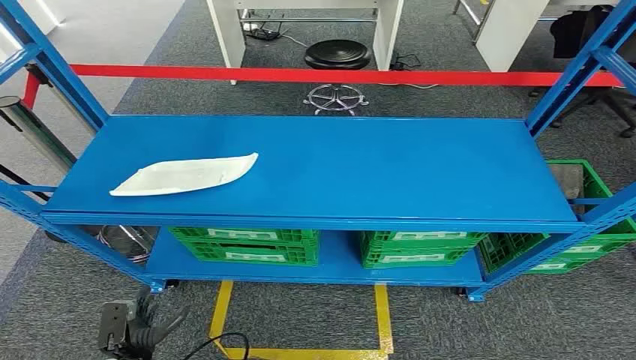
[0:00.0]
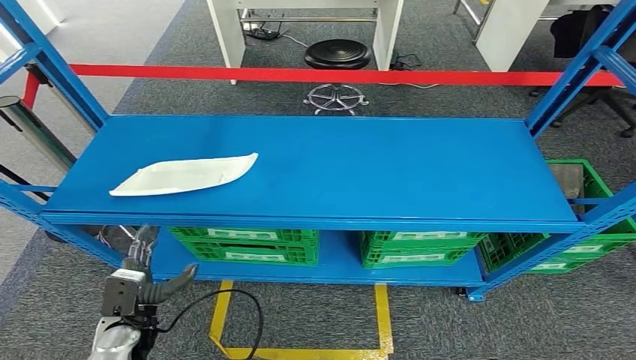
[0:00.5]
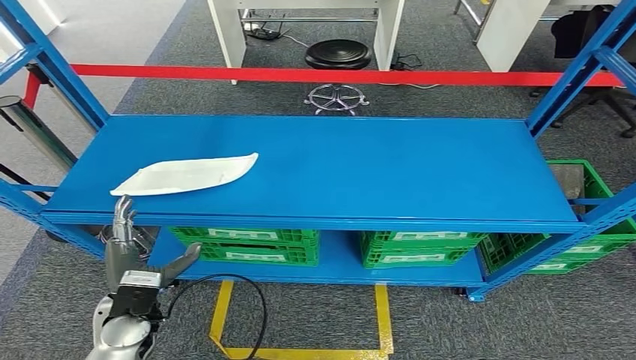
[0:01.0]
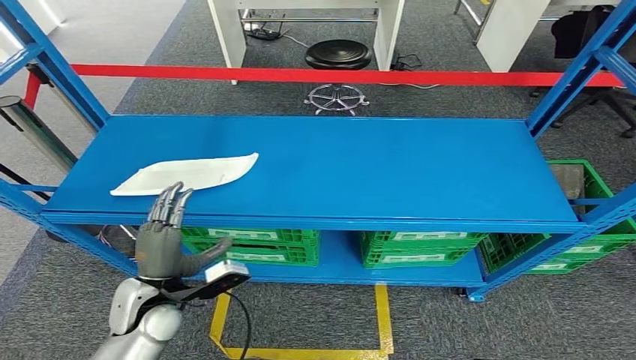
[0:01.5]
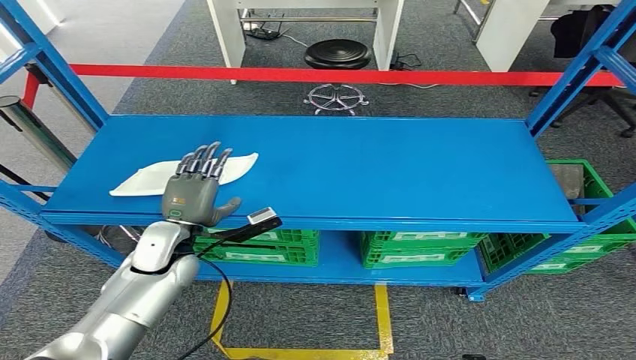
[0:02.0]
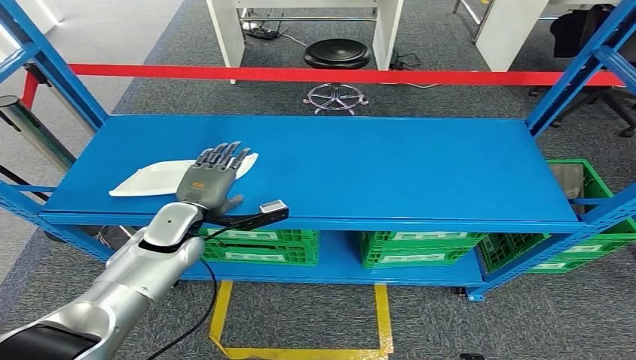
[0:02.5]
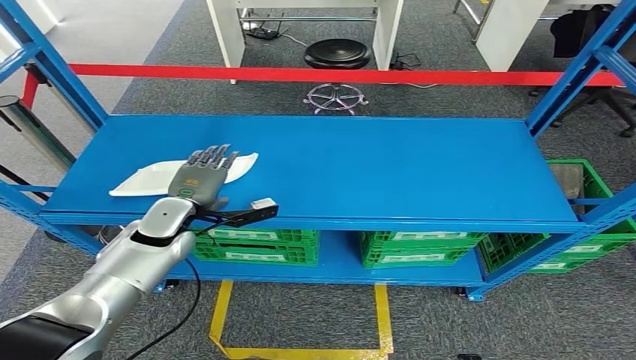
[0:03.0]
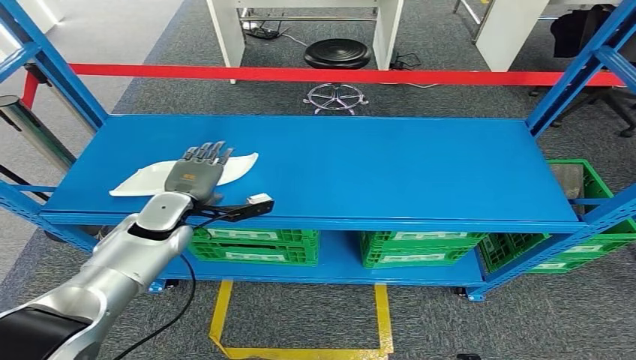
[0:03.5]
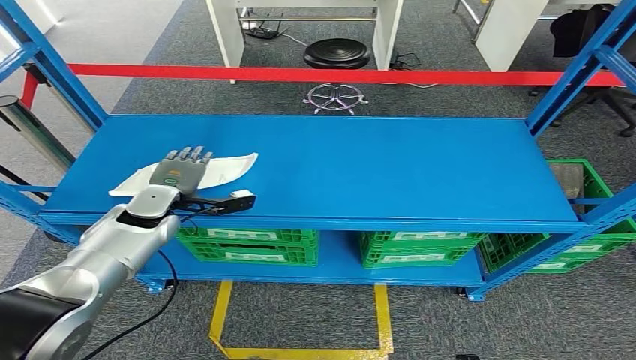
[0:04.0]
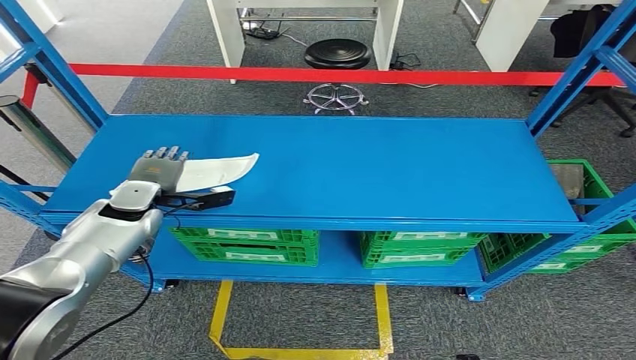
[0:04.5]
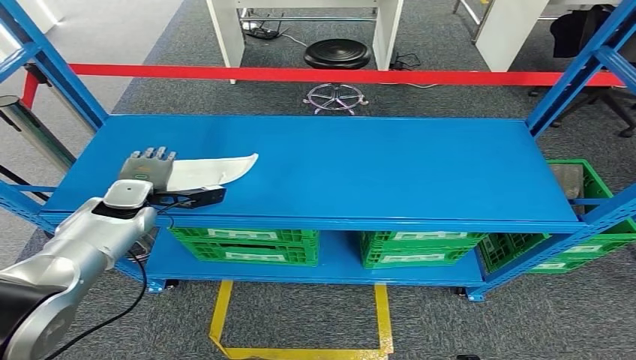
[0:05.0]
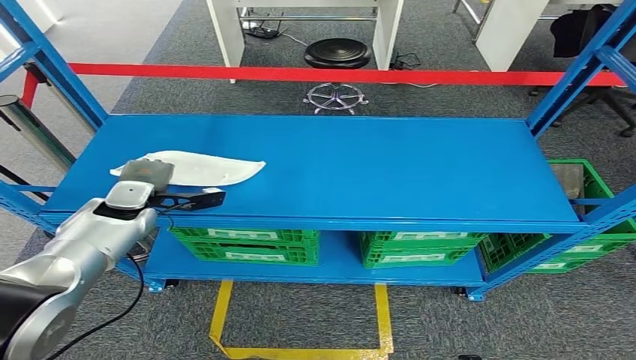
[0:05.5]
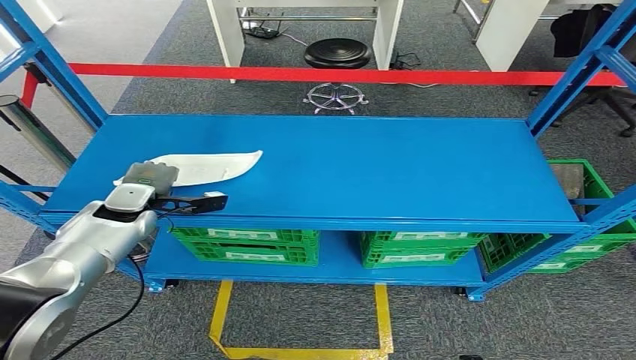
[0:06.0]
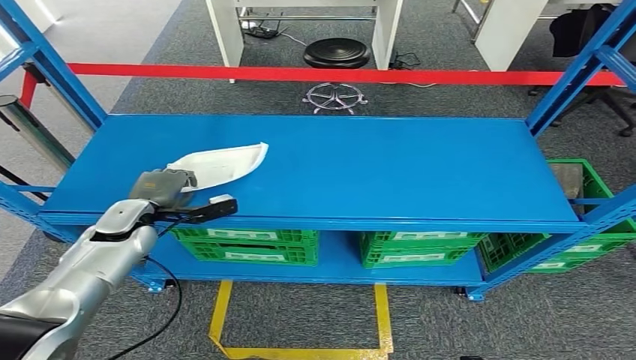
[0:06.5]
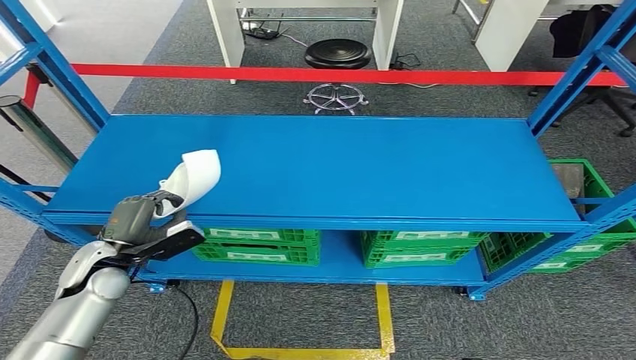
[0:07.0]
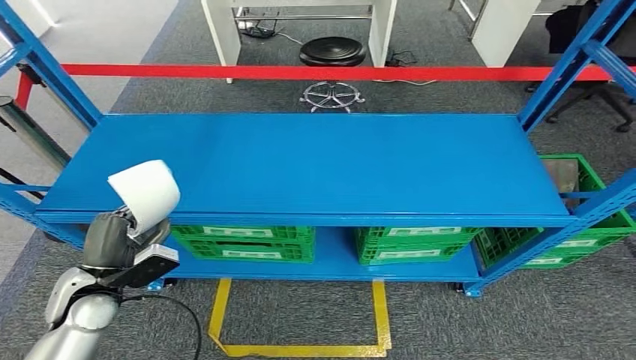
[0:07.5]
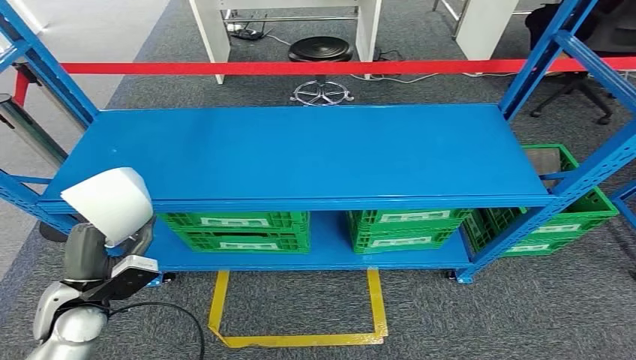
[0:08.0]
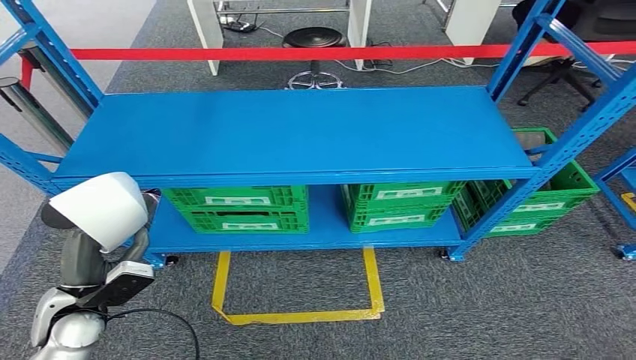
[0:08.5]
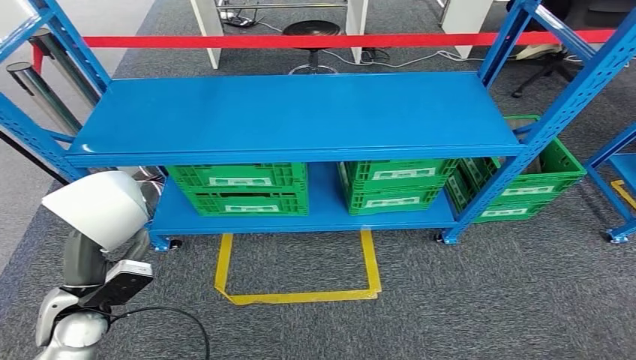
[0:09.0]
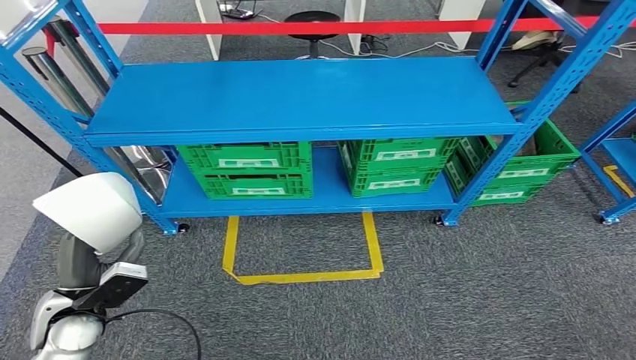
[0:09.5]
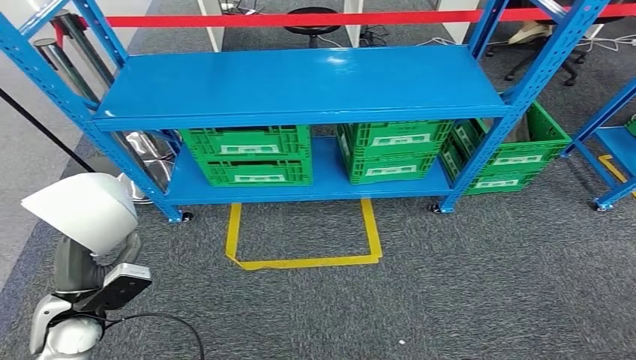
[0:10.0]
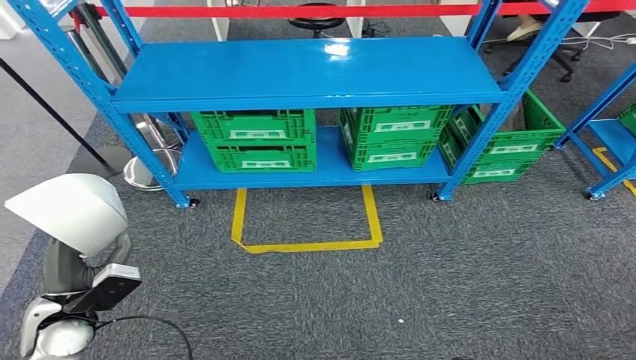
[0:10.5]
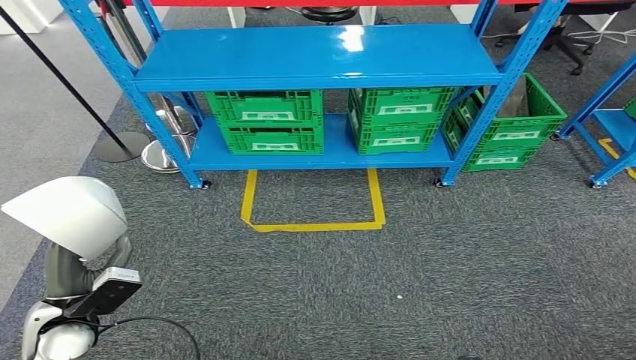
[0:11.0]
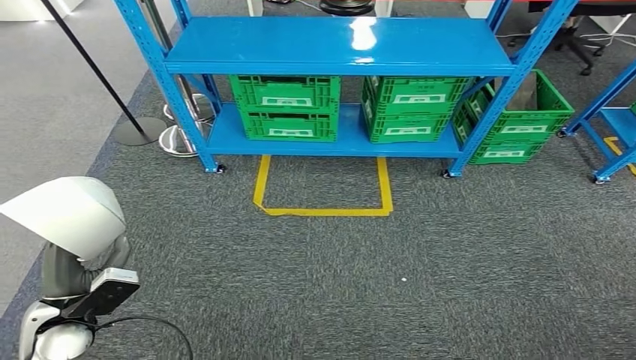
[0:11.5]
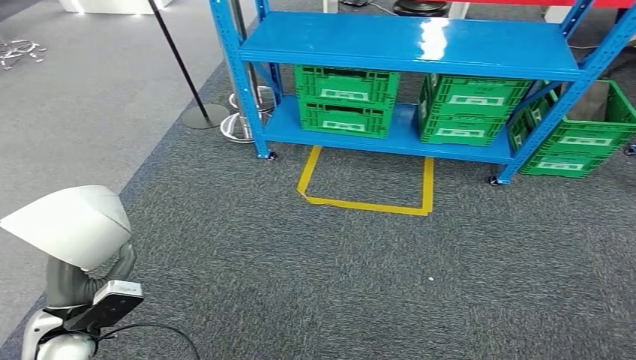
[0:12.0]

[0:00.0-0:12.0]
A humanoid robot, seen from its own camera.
Step, 0:00.0 to 0:08.5: Pick up the small component from the shelf.
0:02.0 to 0:04.0: The left hand goes about 10 cm forward.
0:04.0 to 0:06.0: The hands stay close to where they were, moving slightly.

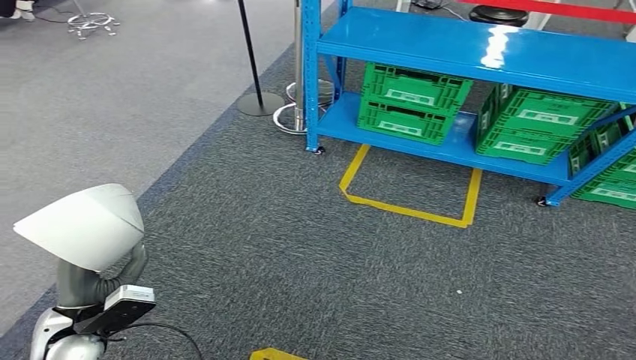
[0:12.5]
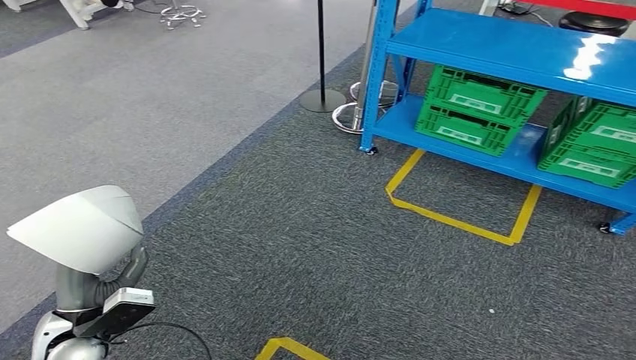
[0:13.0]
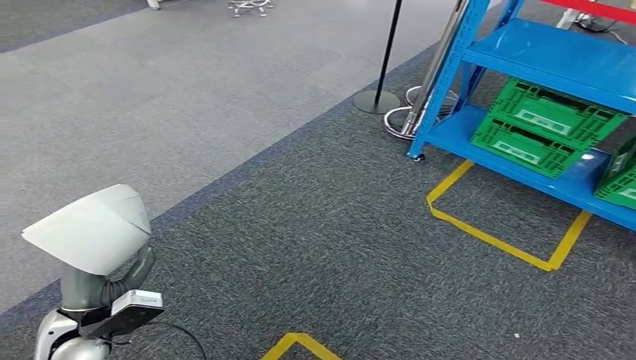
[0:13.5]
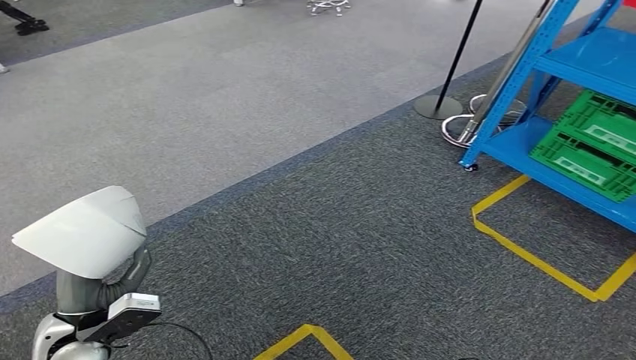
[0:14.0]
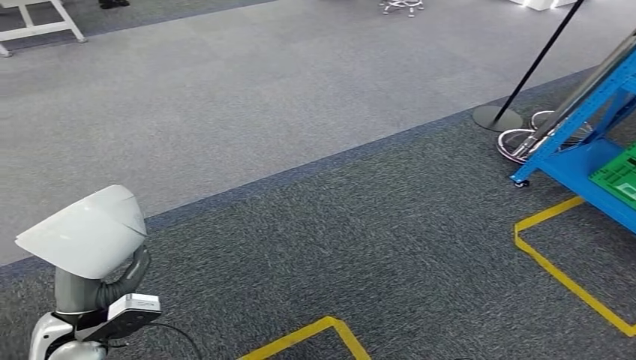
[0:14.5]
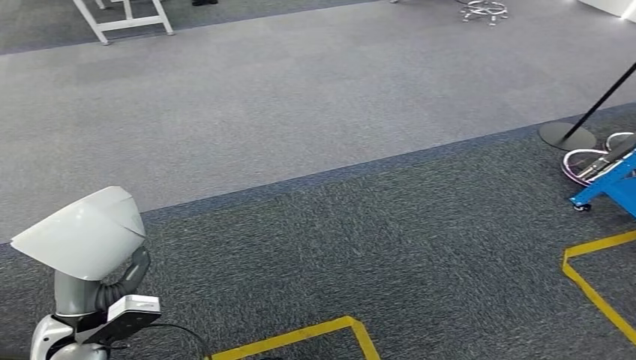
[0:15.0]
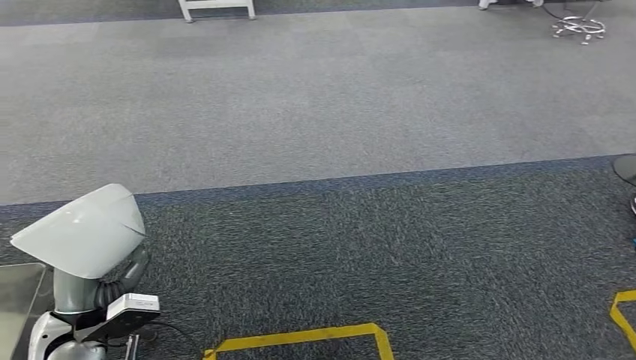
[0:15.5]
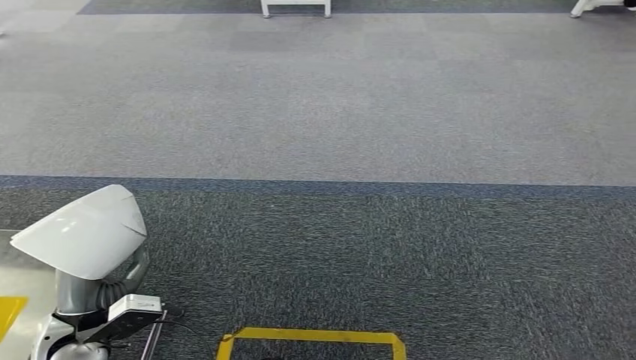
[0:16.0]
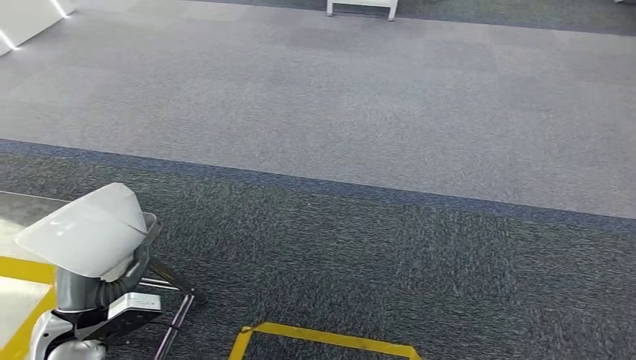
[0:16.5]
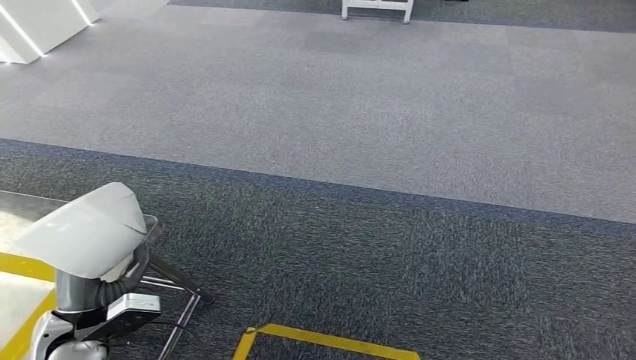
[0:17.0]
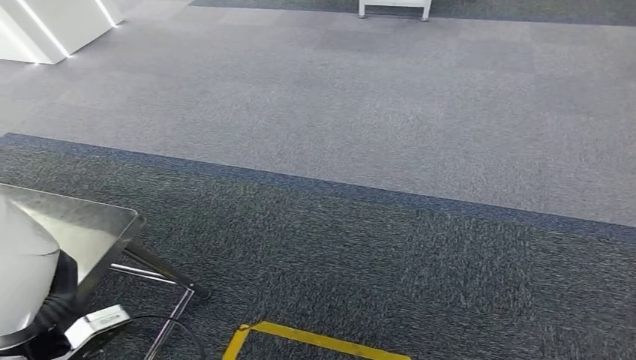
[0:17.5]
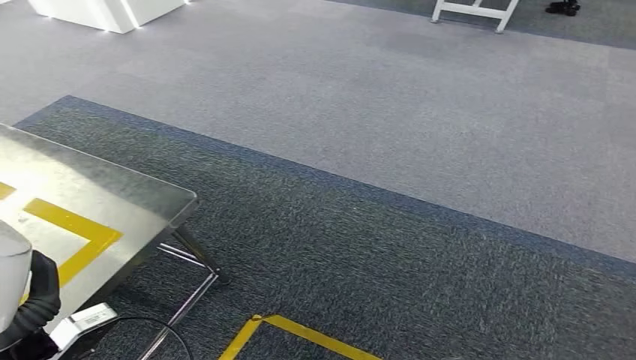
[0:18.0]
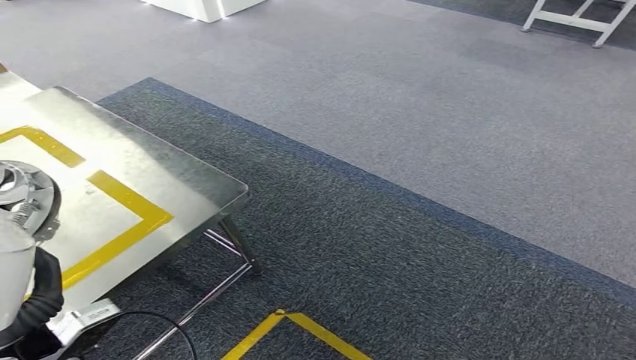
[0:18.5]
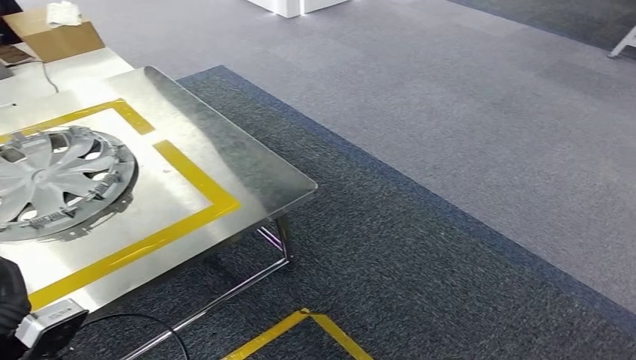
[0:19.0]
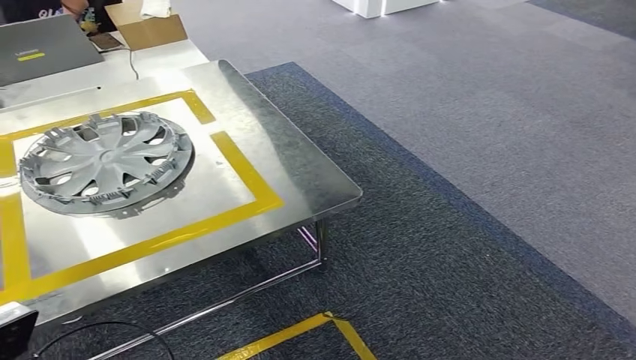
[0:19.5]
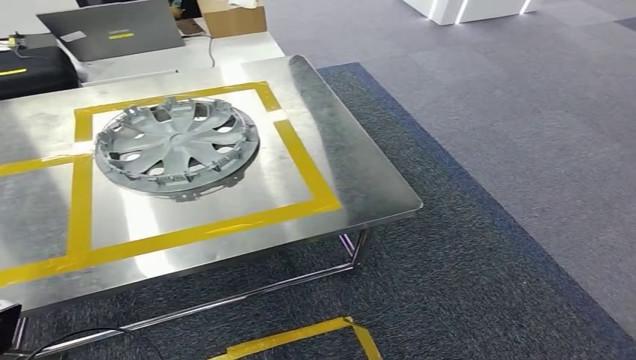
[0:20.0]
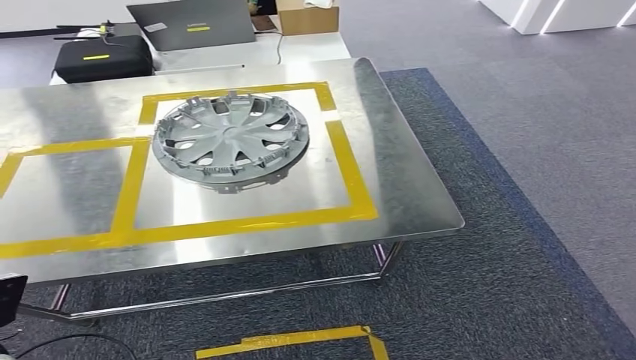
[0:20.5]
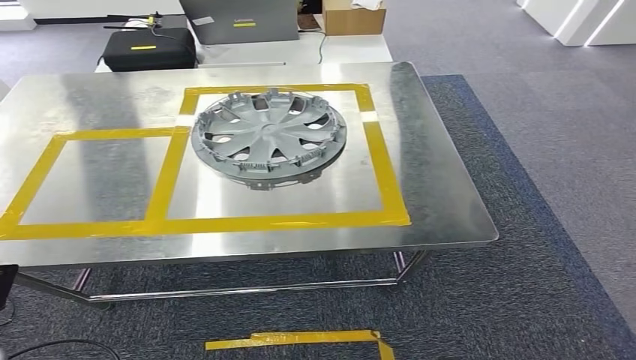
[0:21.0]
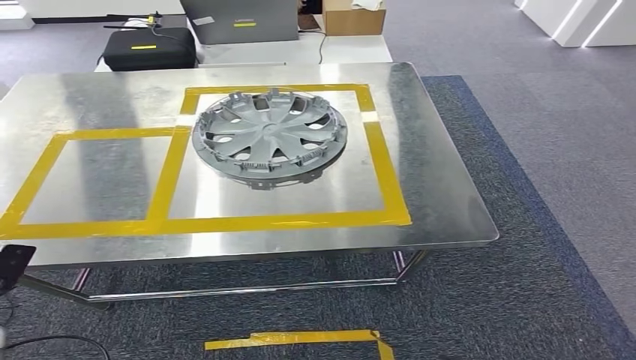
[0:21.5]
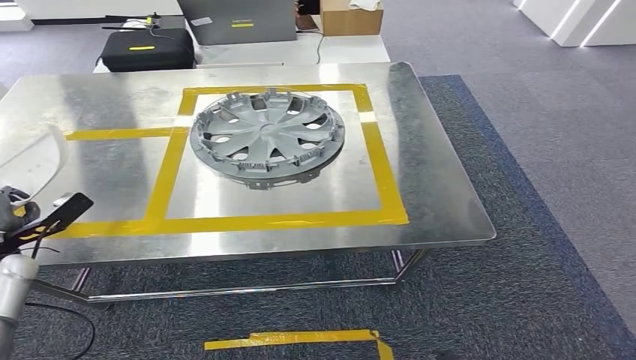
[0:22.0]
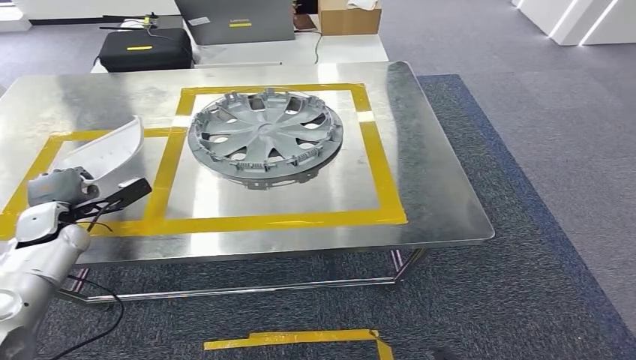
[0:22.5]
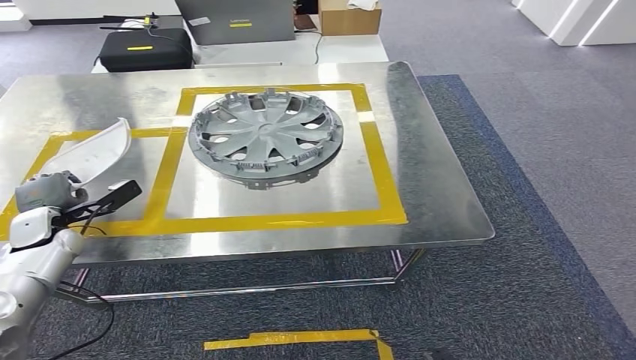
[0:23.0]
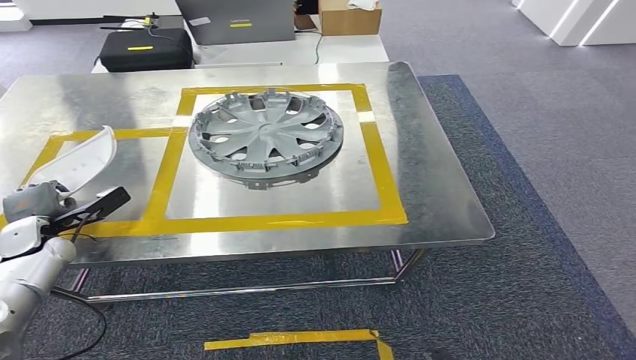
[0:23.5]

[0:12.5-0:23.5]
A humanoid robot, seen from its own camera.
Step, 0:12.5 to 0:18.0: Move the small component to the workbench.
0:21.5 to 0:23.5: The left hand moves forward, about 20 cm.
